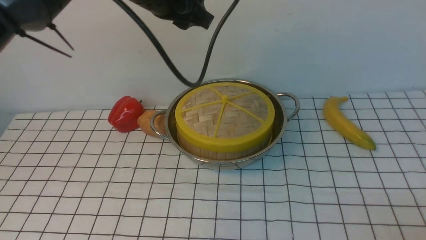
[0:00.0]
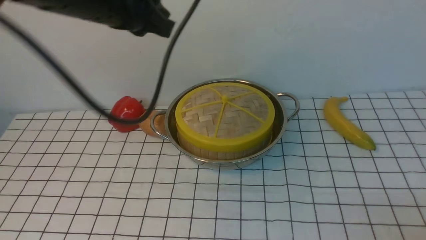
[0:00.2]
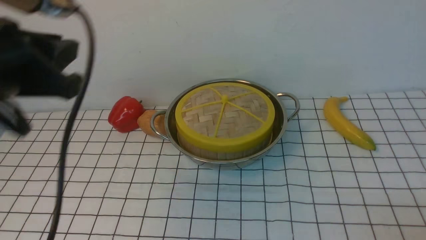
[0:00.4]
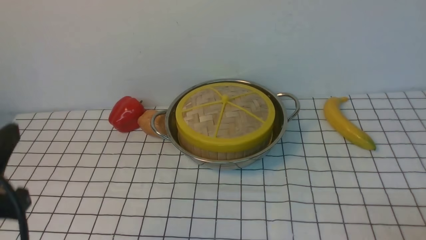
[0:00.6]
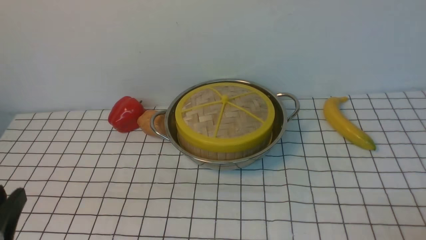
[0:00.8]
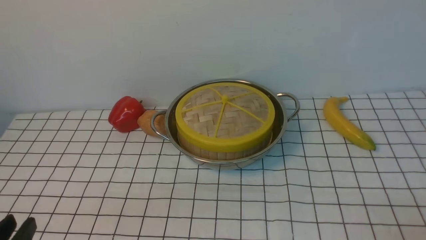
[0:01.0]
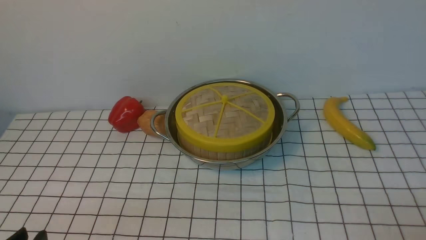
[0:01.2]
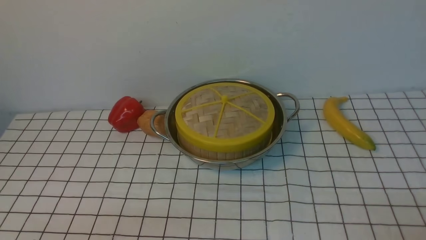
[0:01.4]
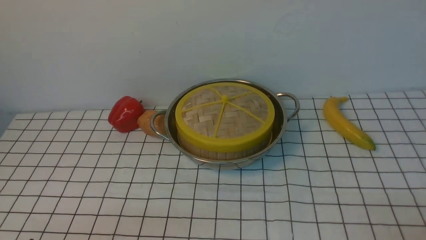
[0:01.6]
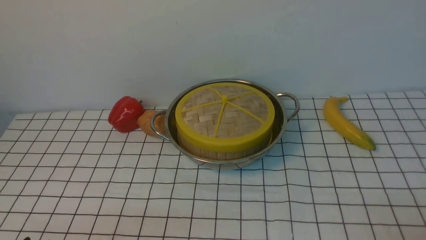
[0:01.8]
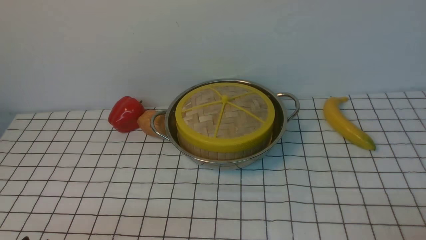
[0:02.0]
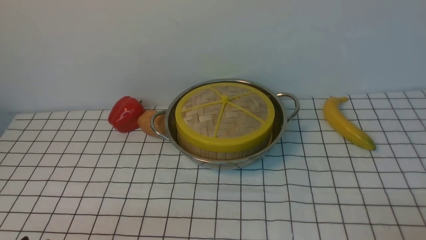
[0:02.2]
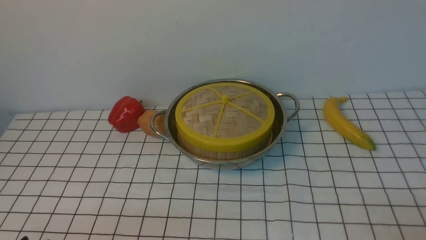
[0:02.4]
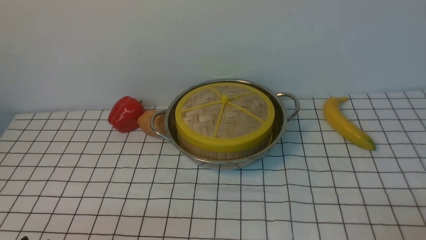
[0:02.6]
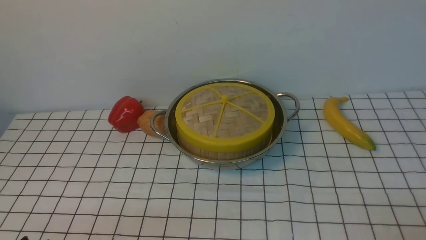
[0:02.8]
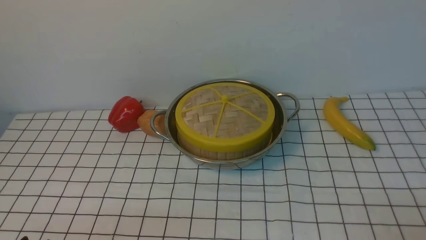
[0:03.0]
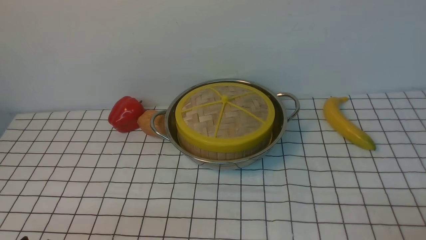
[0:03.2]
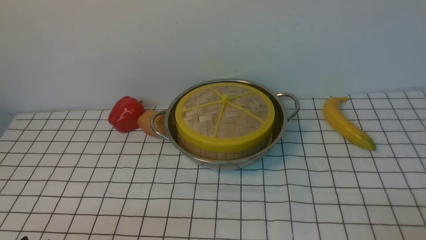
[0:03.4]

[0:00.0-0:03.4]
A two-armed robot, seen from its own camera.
Task of the whole recording: place the steamer in the pot on the white tablecloth, and put the lid on the steamer.
0:00.0 to 0:01.6: The left gripper goes roughly 40 cm backward, downward and to the left.
0:01.6 to 0:03.4: The two grippers keep their place.

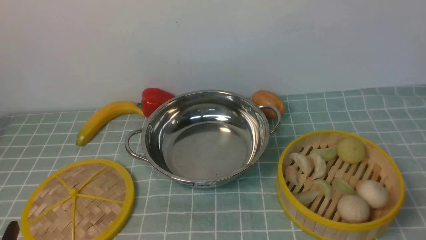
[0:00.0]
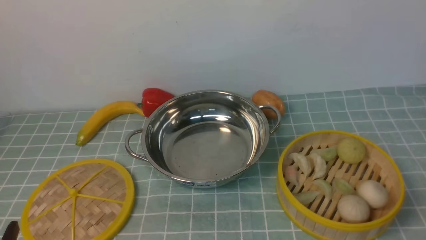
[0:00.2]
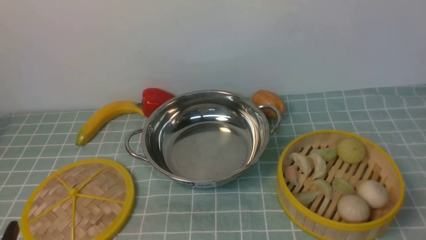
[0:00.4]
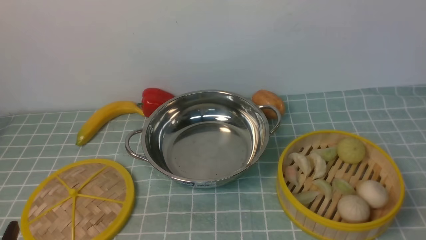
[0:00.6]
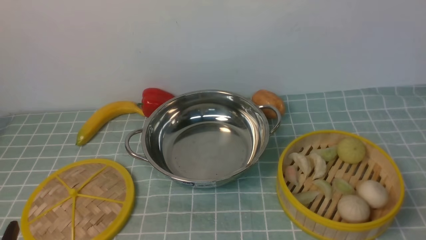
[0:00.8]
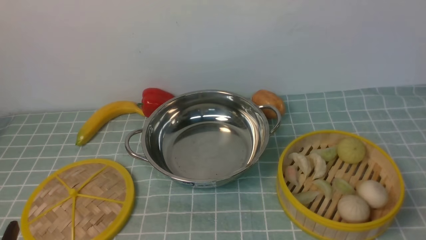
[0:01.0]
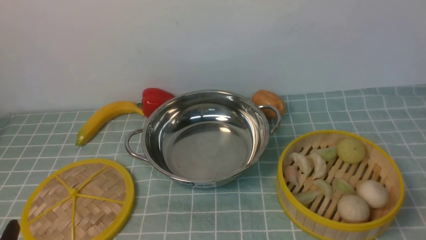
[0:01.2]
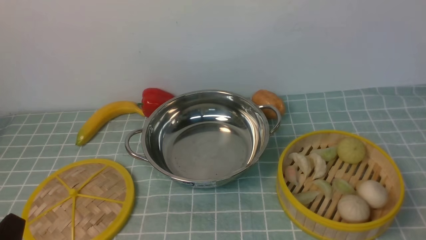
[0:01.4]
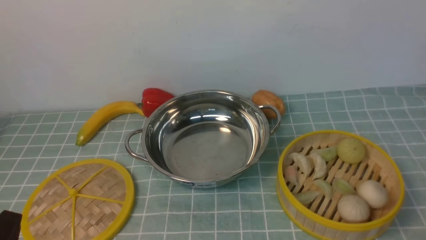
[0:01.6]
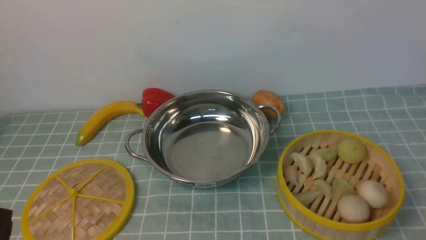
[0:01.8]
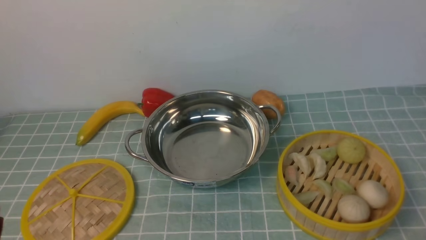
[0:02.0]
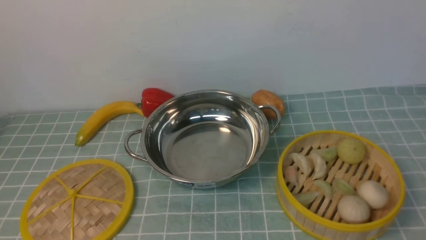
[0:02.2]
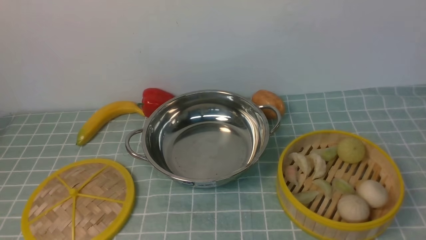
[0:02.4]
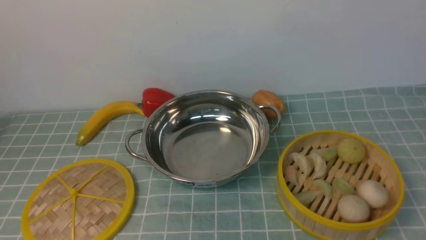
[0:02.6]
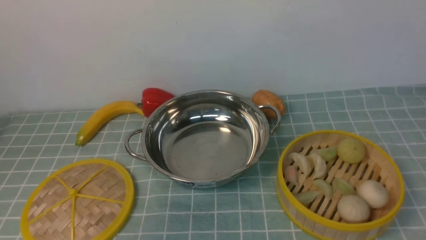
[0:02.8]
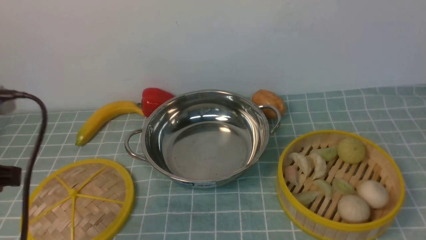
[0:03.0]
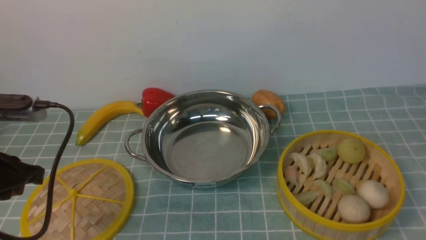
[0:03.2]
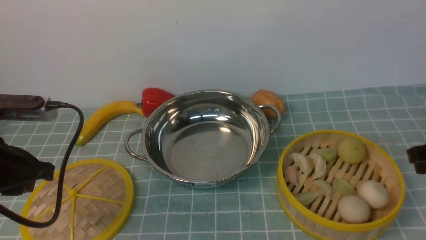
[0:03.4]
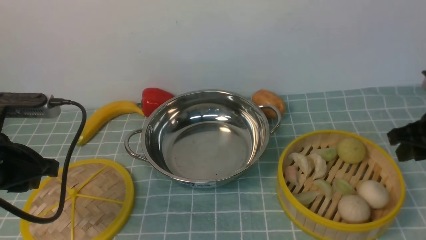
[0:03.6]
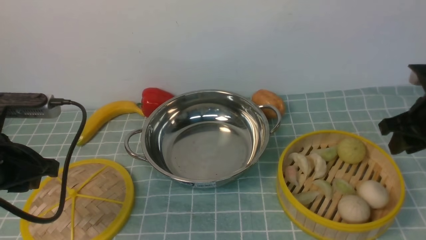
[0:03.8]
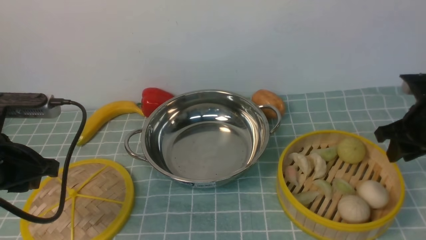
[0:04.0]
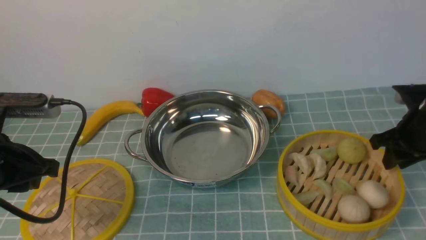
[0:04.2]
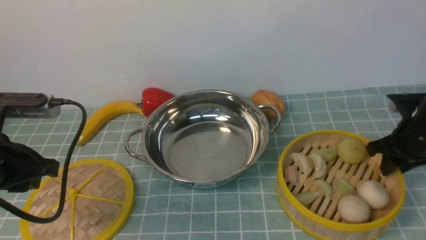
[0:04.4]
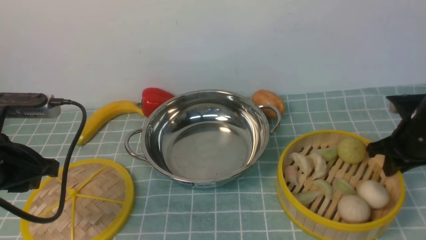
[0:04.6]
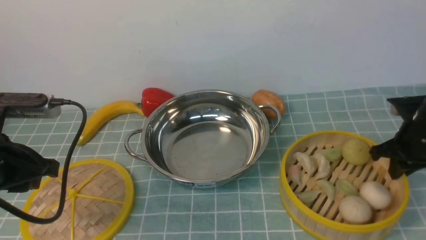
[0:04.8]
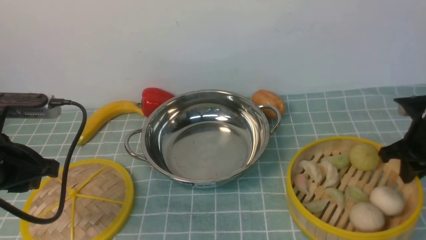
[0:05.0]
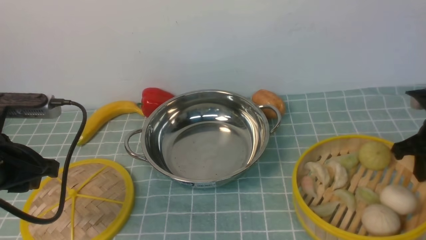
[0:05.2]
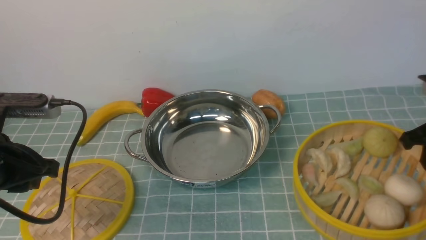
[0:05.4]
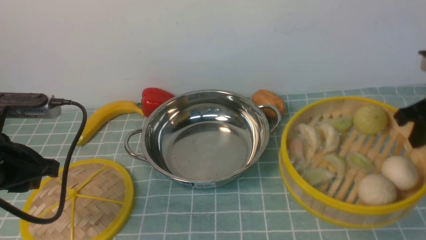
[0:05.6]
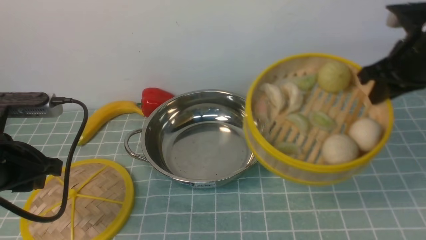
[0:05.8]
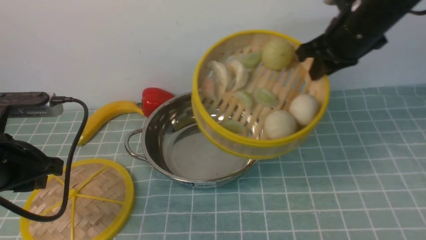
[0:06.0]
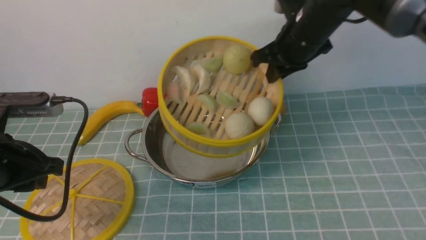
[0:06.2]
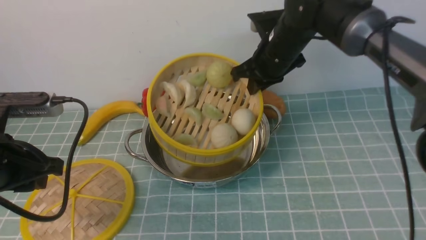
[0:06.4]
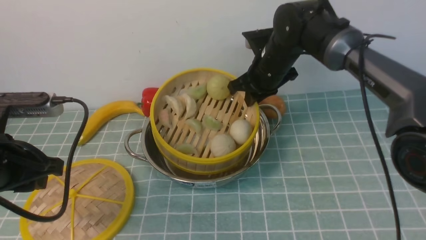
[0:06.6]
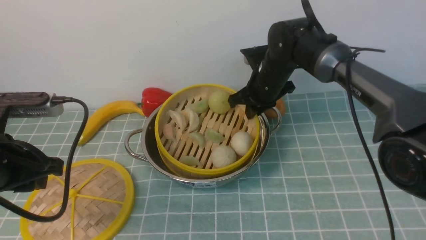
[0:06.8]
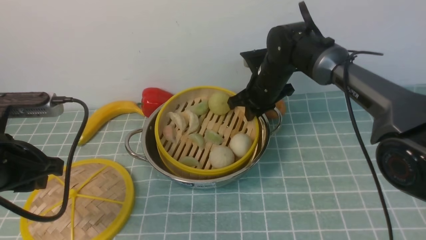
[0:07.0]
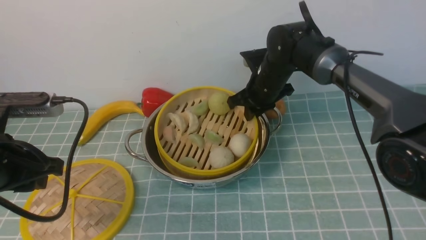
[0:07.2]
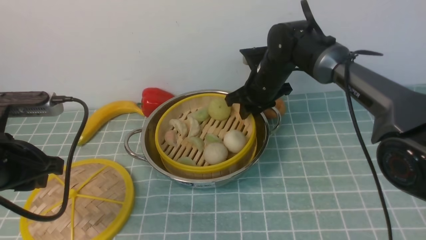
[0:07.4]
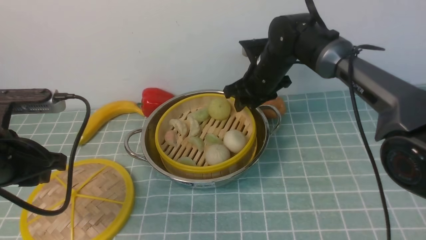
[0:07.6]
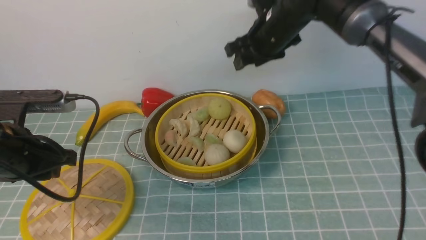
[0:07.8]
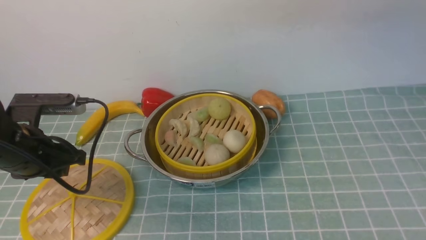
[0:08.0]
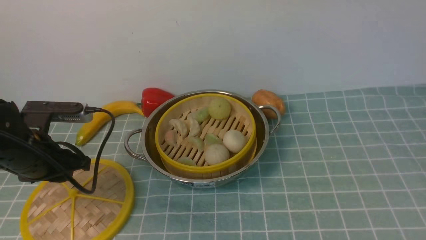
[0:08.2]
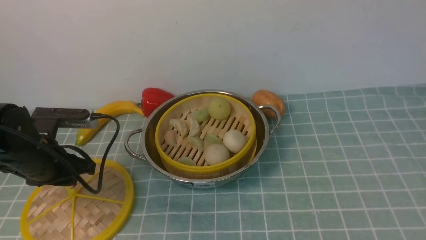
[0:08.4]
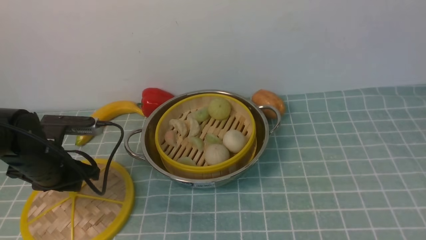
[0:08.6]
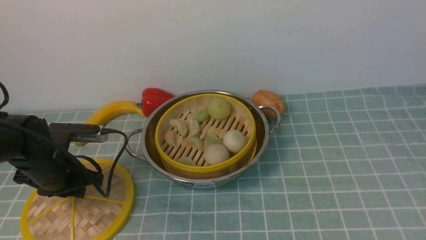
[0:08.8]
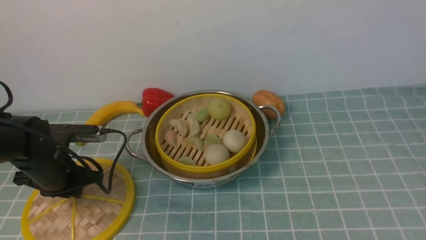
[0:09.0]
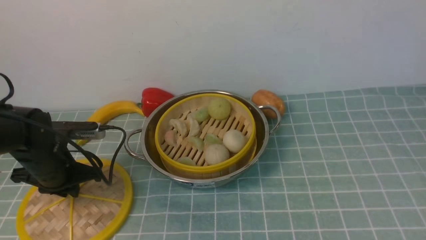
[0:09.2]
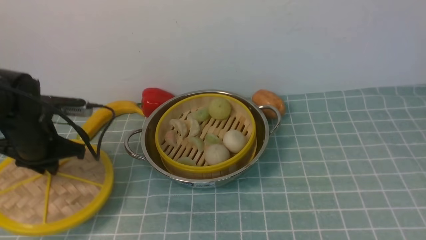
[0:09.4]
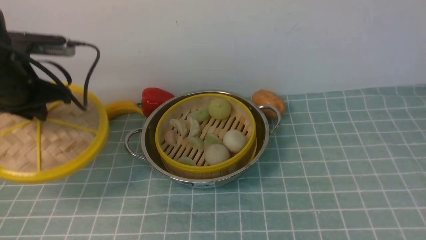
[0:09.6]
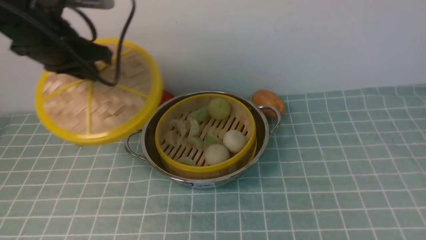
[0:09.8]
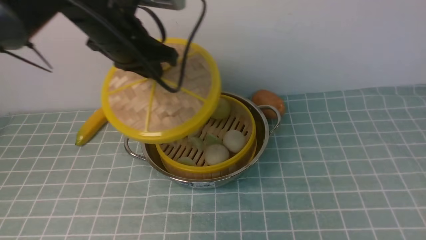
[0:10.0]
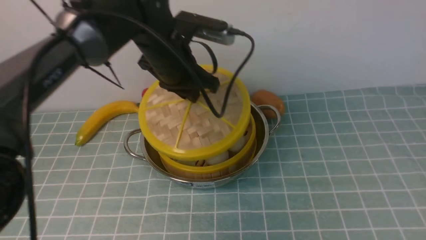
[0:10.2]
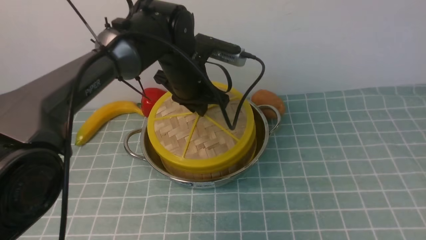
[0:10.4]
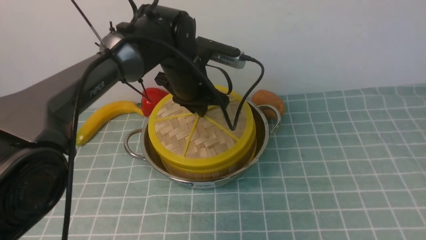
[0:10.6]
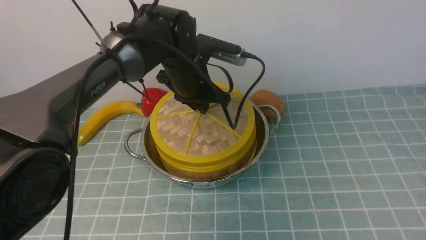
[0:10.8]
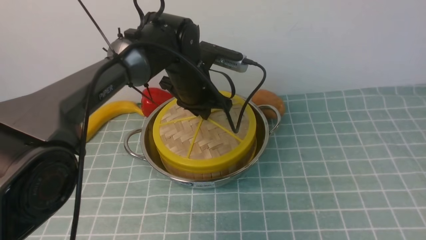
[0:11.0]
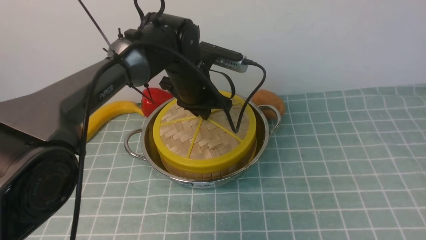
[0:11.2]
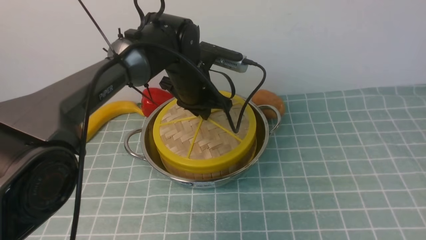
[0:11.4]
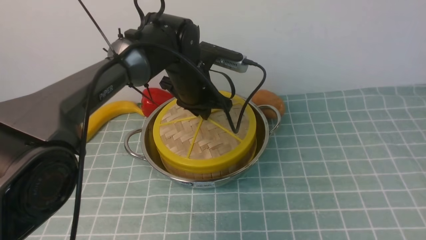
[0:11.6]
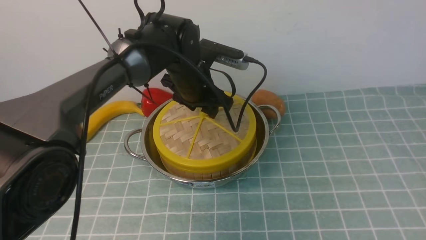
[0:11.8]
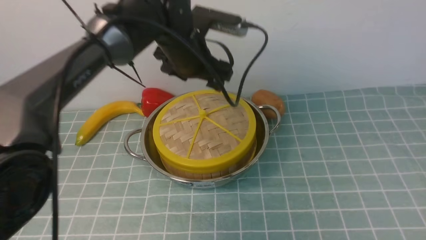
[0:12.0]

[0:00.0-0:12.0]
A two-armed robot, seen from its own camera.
Task of the whole recording: place the steamer in the pot on the blue tablecloth, and put the lid on the steamer.
Step, 0:00.0 to 0:05.4: use the right arm to lift the steamer closest to it.
Step, 0:05.6 to 0:08.2: use the right arm to put the steamer into the iron steamer pot in the middle.
Step, 0:08.4 to 0:09.6: use the left arm to lift the lid of the steamer.
0:01.6 to 0:03.0: The two grippers go roughly 15 cm upward and forward.
0:03.0 to 0:04.4: The left gripper is displaced forward by about 5 cm. Meanwhile the right gripper goes some 25 cm forward and downward.
0:04.4 to 0:06.0: The right gripper travels upward and to the left by roughly 20 cm.
0:06.0 to 0:07.6: The right gripper shifts approximately 15 cm to the left, downward and forward, and opens.
0:07.6 to 0:09.0: The left gripper heads downward and forward, covering roughly 15 cm. Meanwhile the right gripper shifts about 60 cm backward, upward and to the right.
0:09.0 to 0:10.4: The left gripper travels to the right, forward and upward by about 25 cm.
0:10.4 to 0:12.0: The left gripper heads upward, covering some 5 cm, and opens.

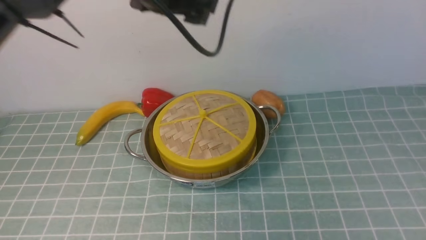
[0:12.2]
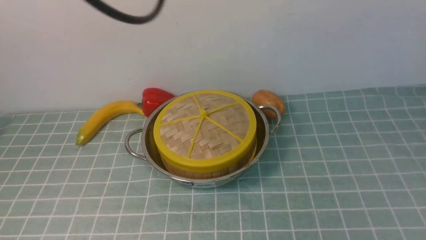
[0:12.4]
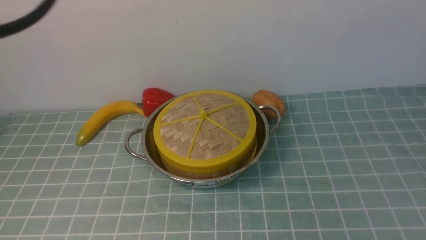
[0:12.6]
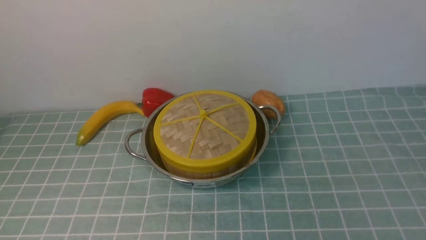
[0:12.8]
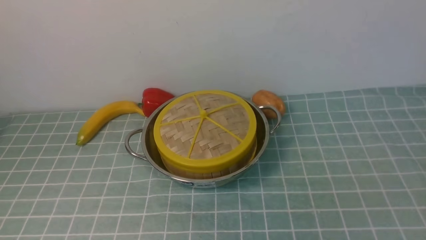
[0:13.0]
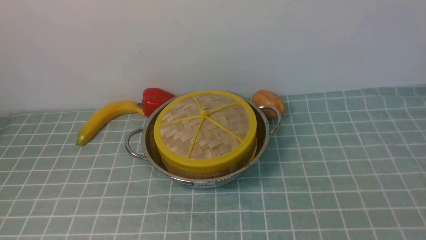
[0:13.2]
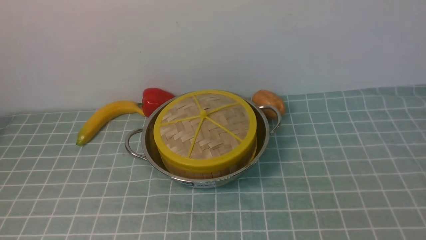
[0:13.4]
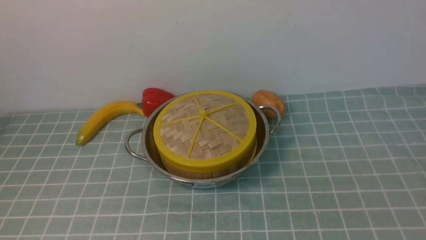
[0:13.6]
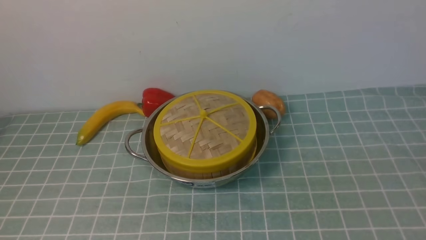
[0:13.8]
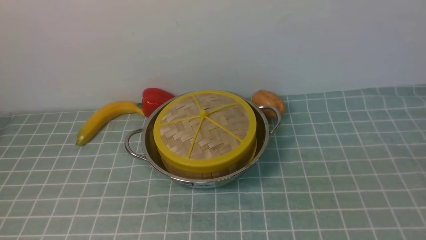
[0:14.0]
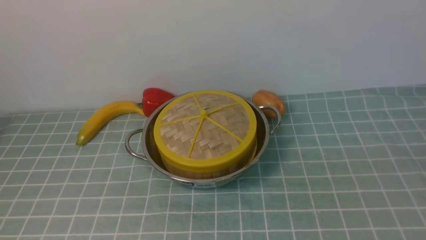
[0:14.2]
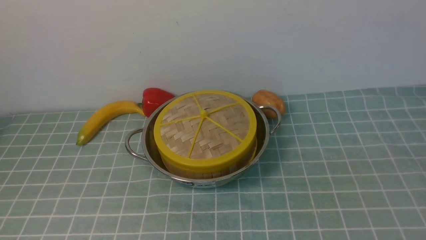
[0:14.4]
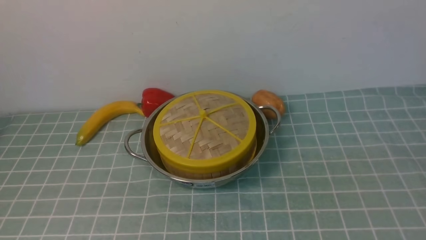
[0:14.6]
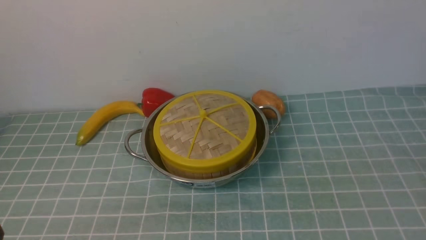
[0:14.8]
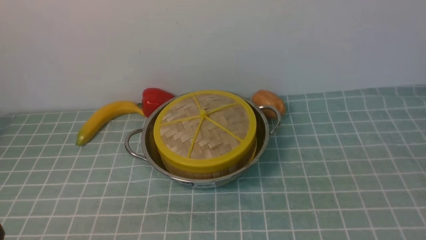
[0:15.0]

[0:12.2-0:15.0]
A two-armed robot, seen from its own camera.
Task of the whole recording: place the steamer in the pot on the blue tablecloth, and put the lid on the steamer.
0:12.2 to 0:13.6: The left gripper travels backward and to the left by approximately 40 cm, and closes. The right gripper moves downward, approximately 25 cm, and closes.
